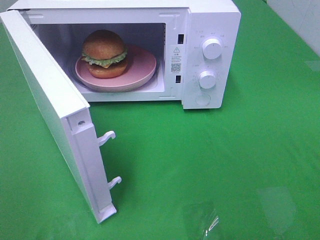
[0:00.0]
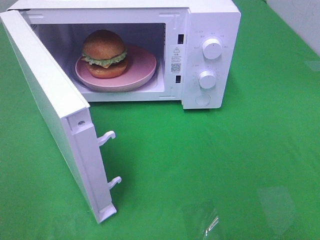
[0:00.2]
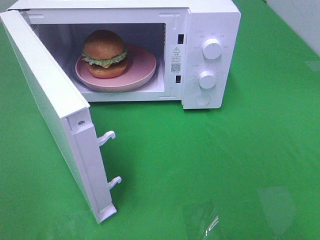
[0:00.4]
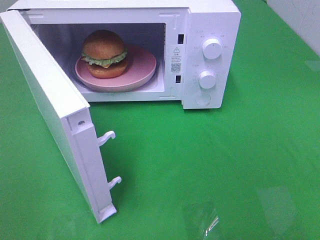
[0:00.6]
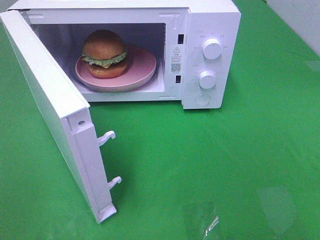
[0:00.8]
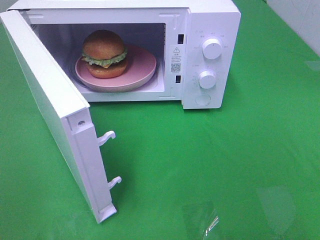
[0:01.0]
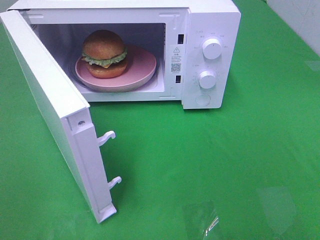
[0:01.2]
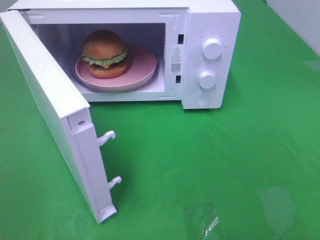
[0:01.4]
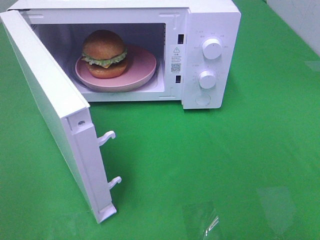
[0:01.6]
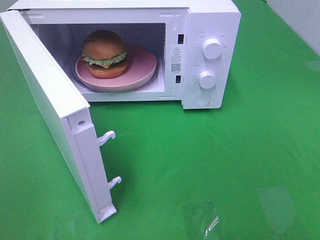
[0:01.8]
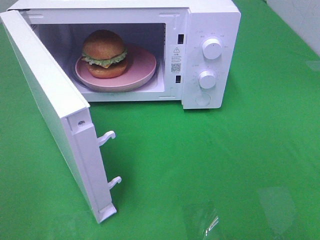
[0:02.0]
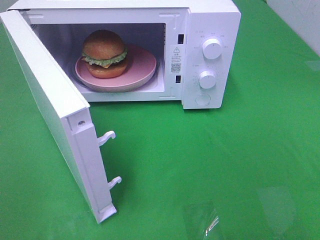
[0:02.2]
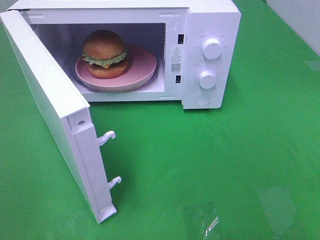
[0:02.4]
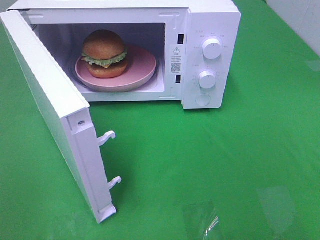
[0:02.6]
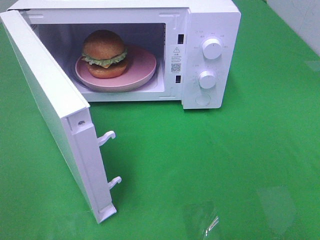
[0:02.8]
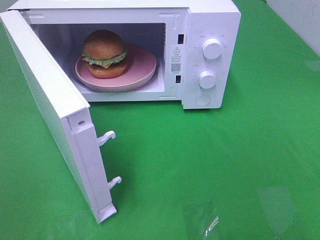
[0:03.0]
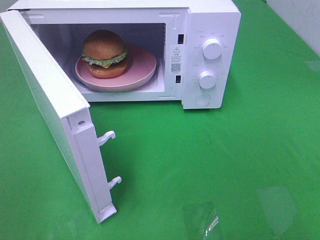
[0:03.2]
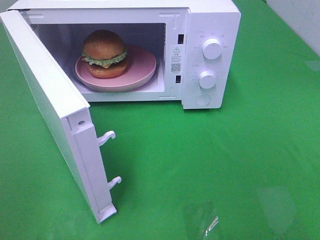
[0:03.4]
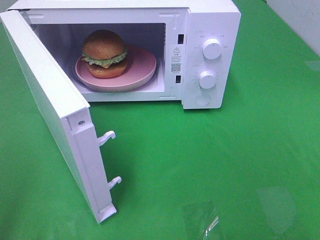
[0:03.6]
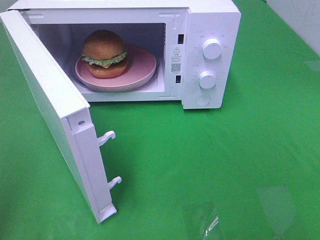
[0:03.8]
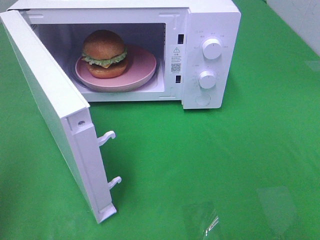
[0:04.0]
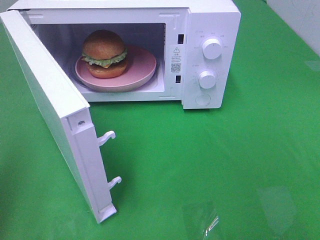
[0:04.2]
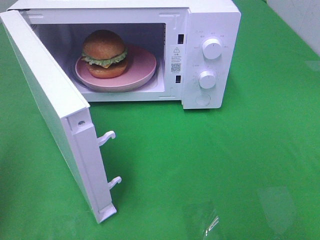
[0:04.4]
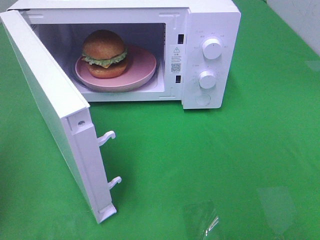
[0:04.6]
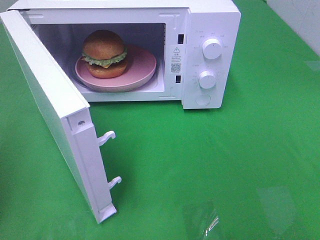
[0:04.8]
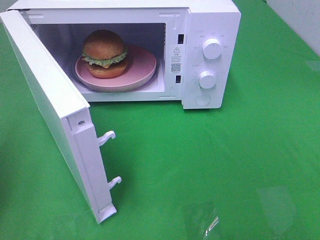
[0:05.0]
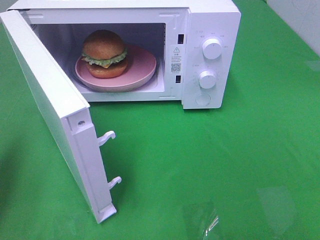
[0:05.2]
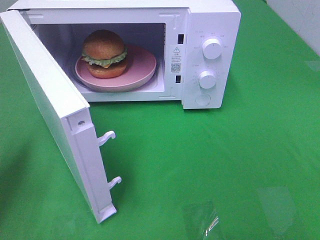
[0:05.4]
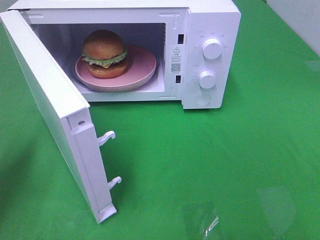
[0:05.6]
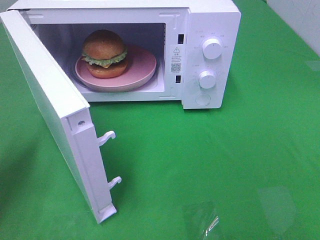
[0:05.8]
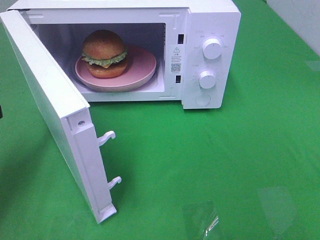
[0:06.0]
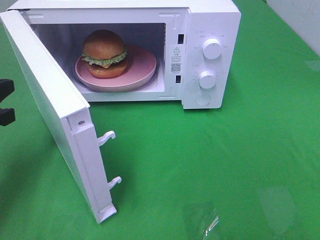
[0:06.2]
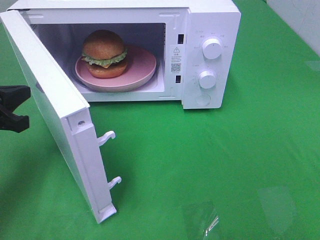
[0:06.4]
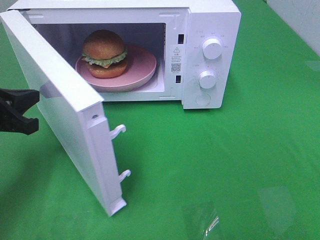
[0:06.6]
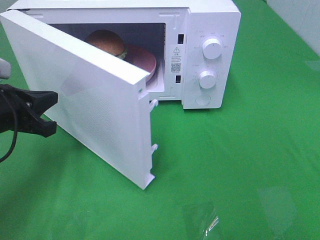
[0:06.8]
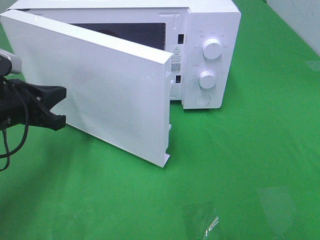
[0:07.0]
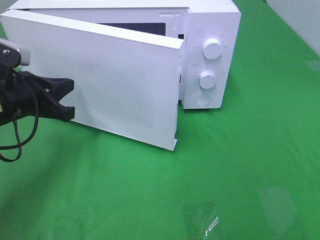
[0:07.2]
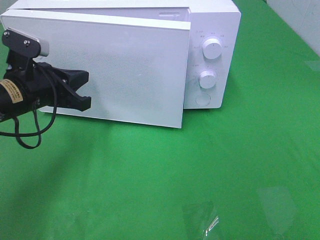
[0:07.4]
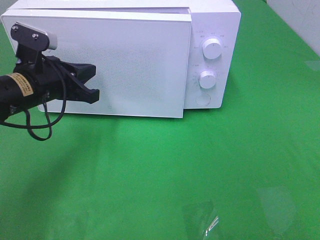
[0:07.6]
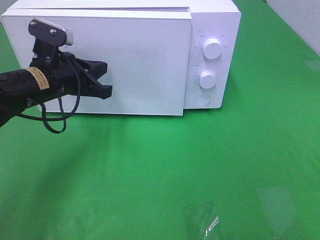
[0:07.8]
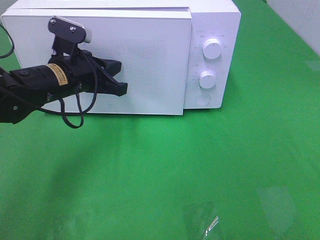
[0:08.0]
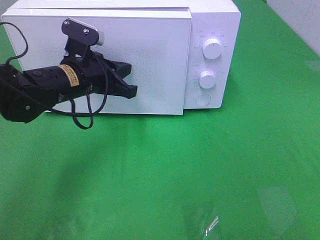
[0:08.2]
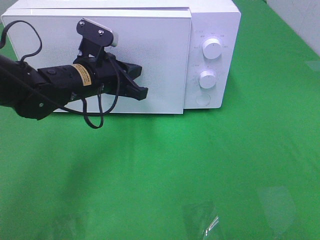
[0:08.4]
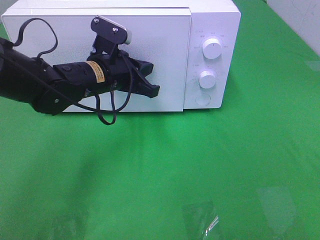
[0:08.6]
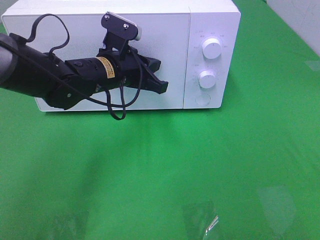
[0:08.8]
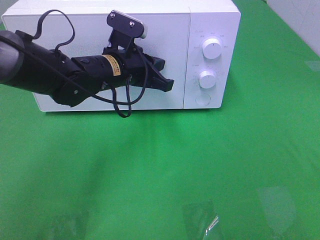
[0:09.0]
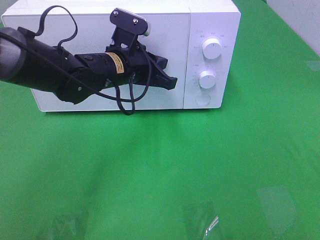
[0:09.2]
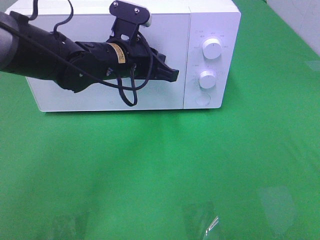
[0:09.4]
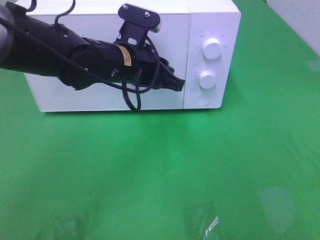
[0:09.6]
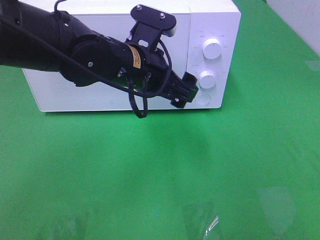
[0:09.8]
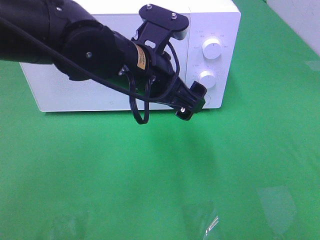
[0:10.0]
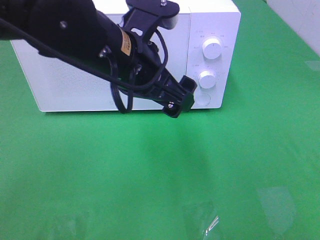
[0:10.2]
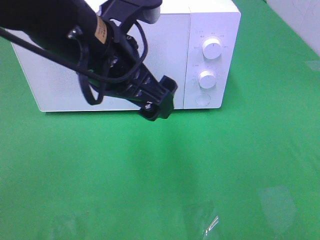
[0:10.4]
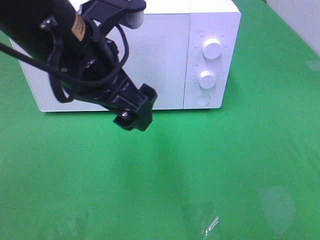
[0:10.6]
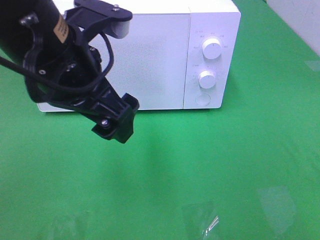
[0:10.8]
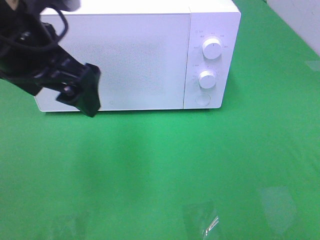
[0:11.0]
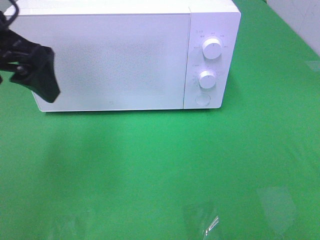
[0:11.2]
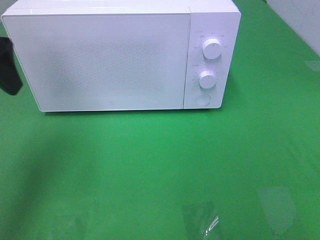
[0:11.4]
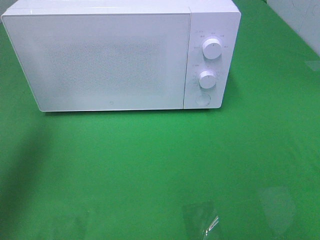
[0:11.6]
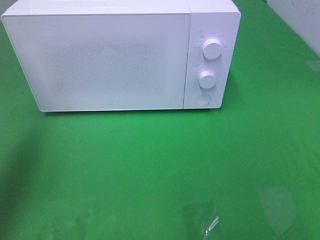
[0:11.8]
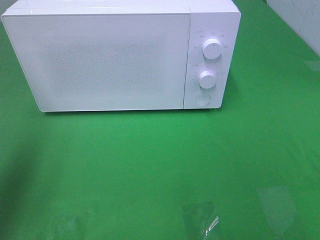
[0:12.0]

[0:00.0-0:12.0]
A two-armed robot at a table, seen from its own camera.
Task of the whole recording: Heat the burger.
Step, 0:00.0 to 0:09.6: Left hand: close the microwave door.
0:01.6 to 0:03.0: Both grippers stay about where they are.
0:04.4 to 0:06.0: The left gripper travels forward and downward by some 15 cm.
0:06.0 to 0:07.6: The left gripper goes some 15 cm to the right and forward.
0:07.6 to 0:09.0: The left gripper is displaced to the right by some 10 cm.
0:09.0 to 0:10.4: The left gripper shifts roughly 15 cm backward and upward, and opens.
0:10.4 to 0:12.0: The left gripper heads to the left, covering roughly 25 cm.

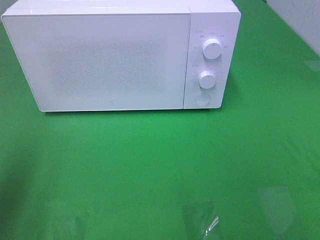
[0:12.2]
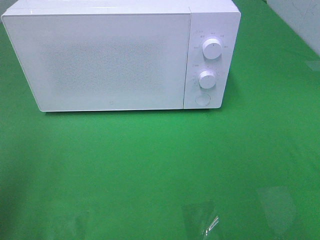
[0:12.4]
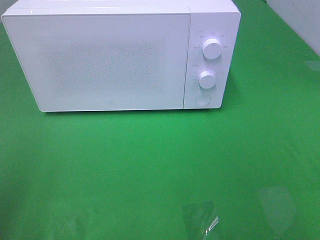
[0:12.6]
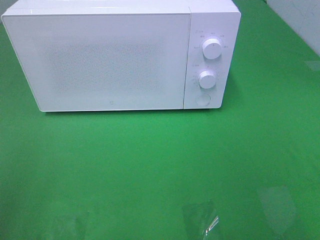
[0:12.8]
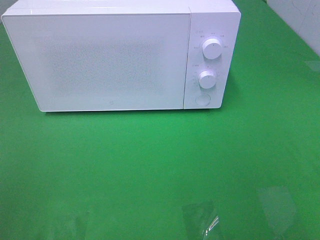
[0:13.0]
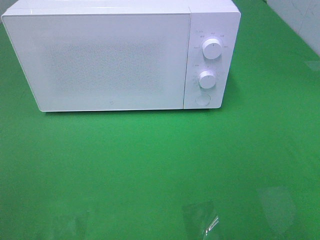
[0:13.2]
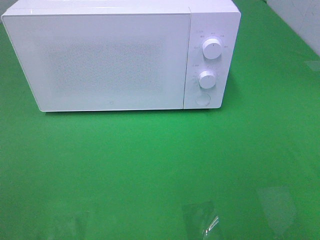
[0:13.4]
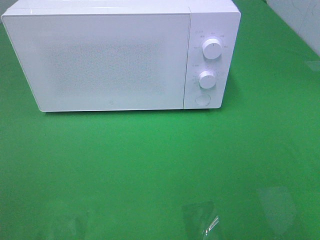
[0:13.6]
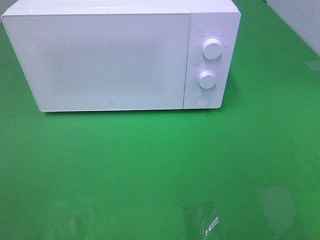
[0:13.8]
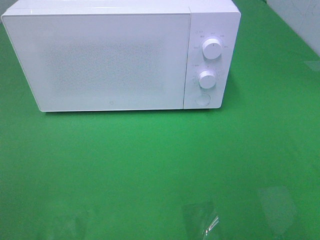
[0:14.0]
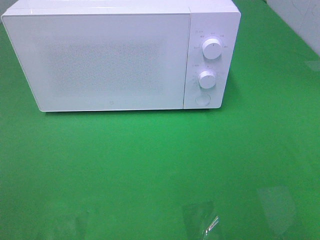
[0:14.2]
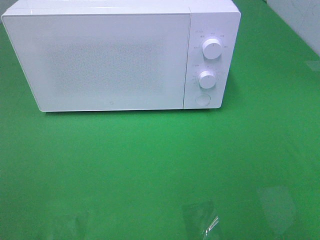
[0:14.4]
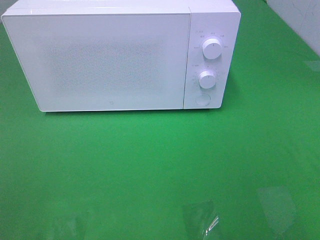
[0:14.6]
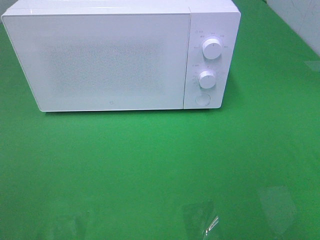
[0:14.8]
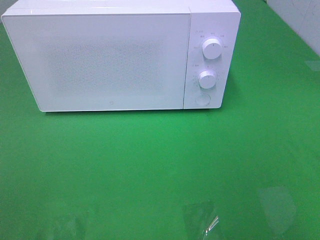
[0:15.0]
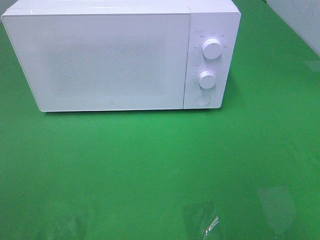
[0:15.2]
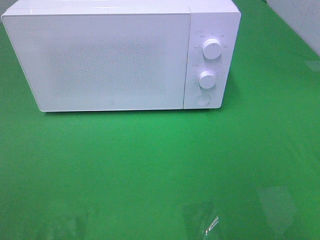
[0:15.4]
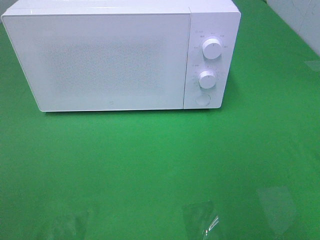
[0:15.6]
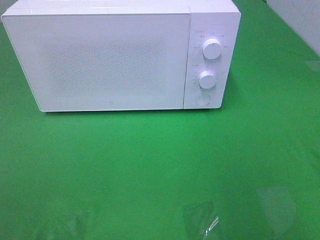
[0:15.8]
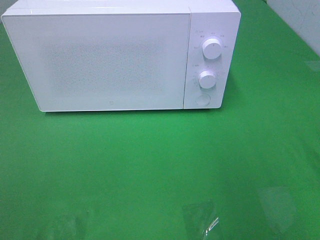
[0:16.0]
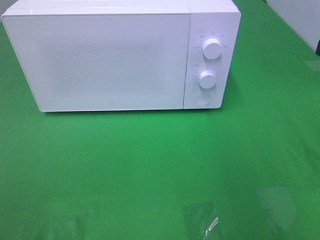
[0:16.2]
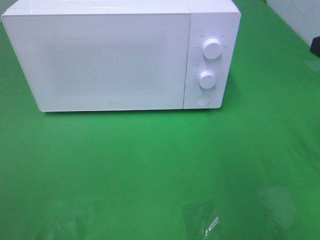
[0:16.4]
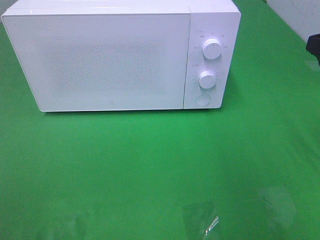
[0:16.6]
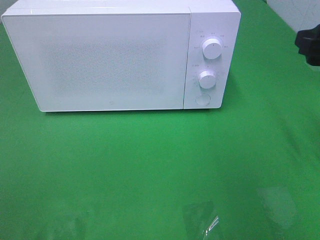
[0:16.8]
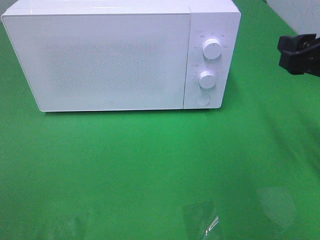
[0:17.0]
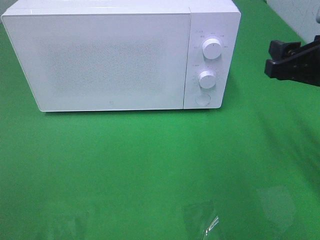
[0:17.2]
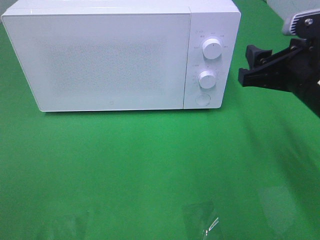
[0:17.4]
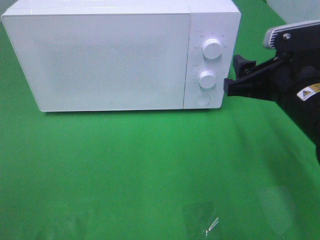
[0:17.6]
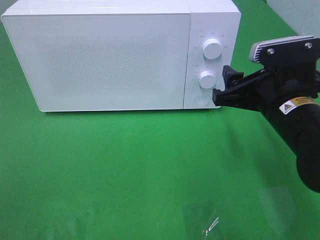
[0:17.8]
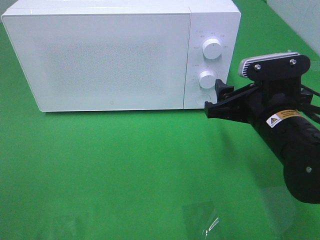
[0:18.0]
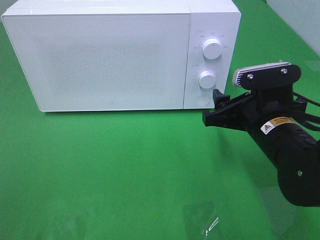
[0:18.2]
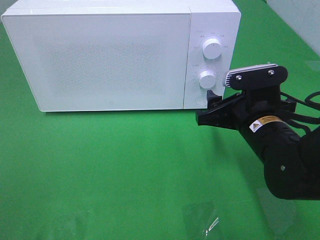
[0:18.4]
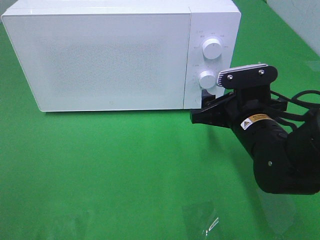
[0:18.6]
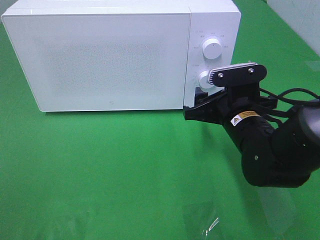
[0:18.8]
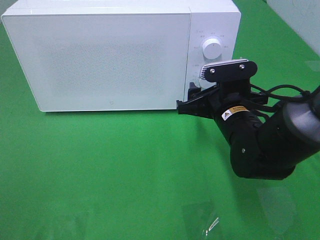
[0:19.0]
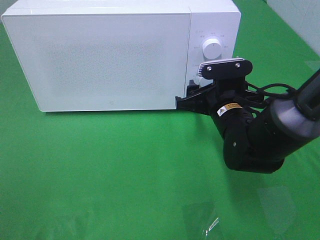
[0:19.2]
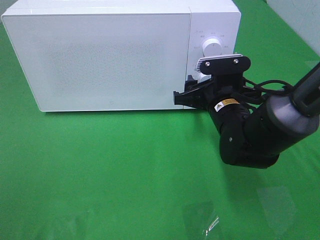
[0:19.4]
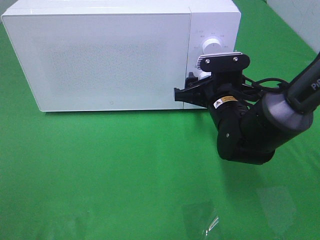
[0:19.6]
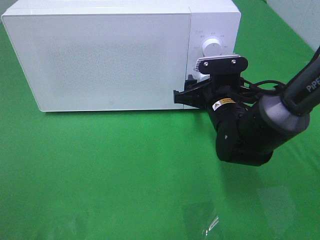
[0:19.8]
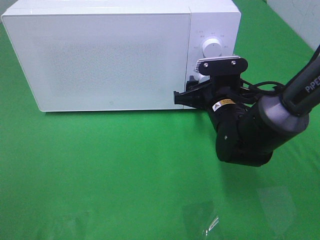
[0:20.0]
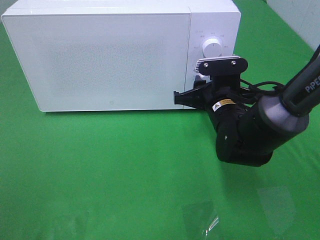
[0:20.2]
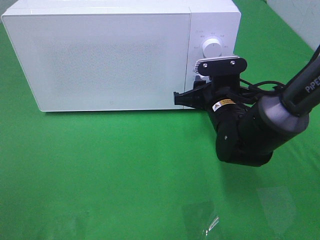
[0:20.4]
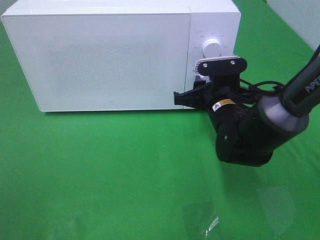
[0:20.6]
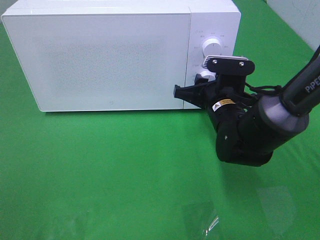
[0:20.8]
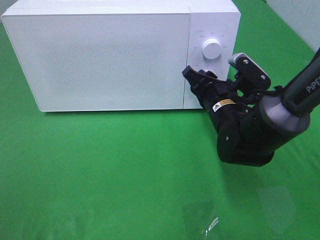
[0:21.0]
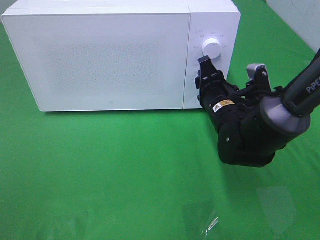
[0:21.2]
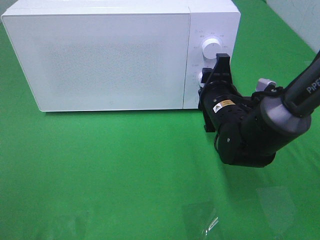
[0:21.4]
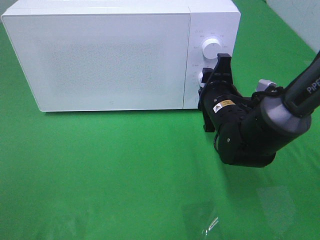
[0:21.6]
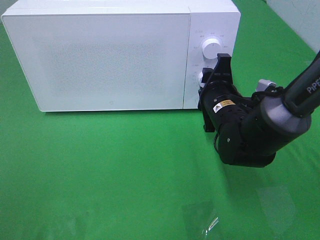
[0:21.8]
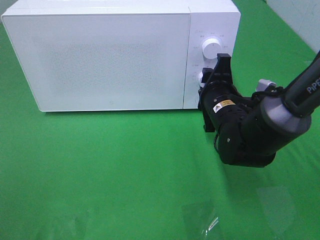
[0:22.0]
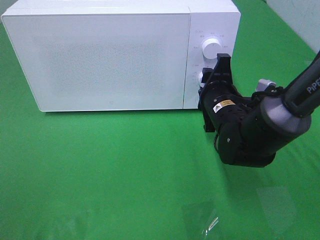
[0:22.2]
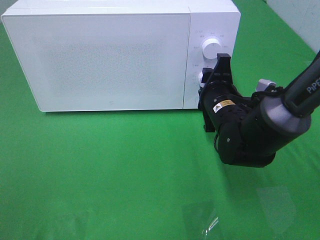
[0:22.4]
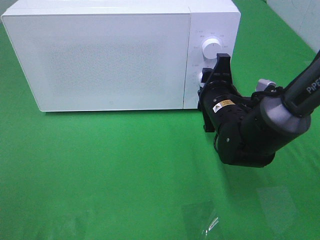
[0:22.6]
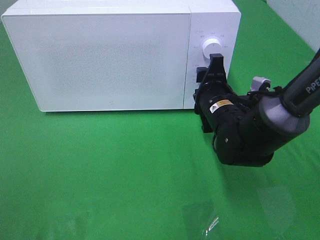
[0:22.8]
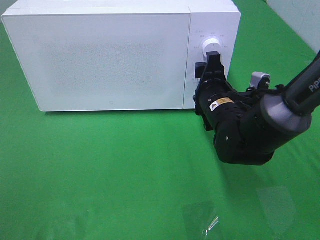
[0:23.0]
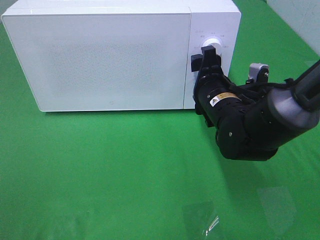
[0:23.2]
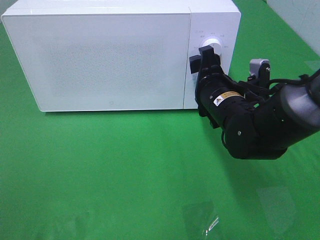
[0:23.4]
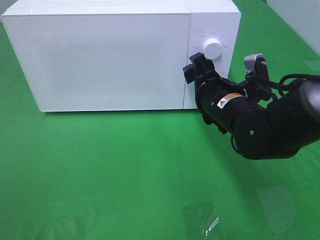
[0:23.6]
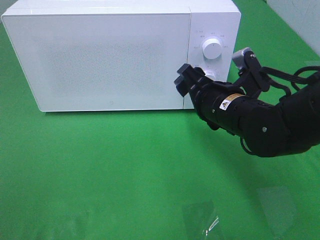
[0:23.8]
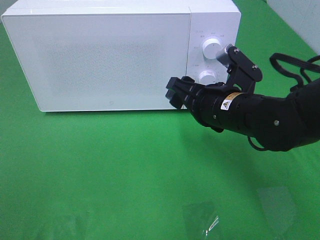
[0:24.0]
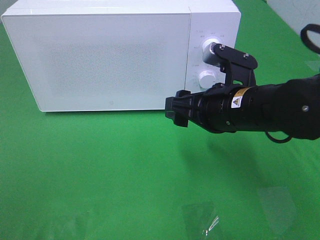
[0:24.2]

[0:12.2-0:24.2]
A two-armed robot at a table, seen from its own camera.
Task of the whole recording: Heat the burger.
Step, 0:12.2 to 0:23.0: Right hand: twist timer button.
0:12.2 to 0:13.8: The left gripper heads backward, covering about 15 cm.
0:16.6 to 0:18.2: The right gripper heads downward and to the left, covering roughly 15 cm.
0:18.2 to 0:19.8: The right gripper travels forward by some 10 cm.
0:22.6 to 0:24.2: The right gripper heads backward and upward, covering some 10 cm.
